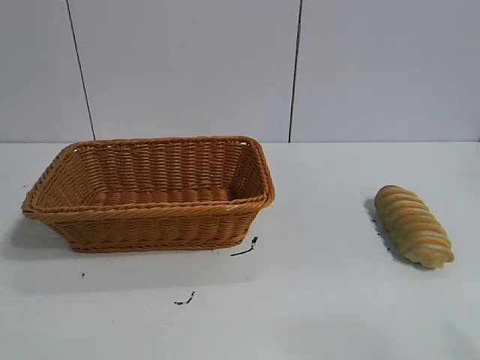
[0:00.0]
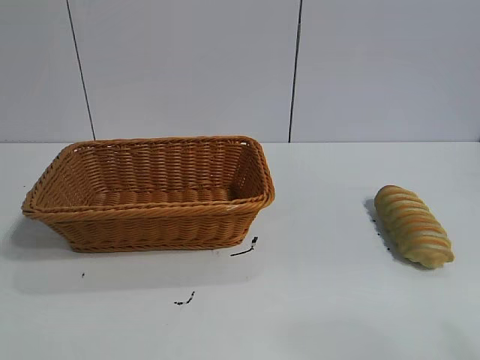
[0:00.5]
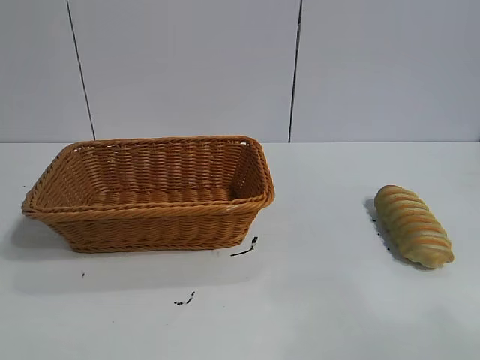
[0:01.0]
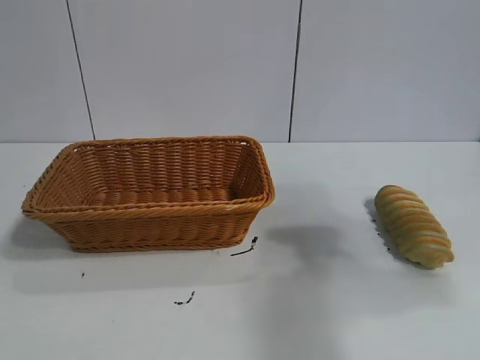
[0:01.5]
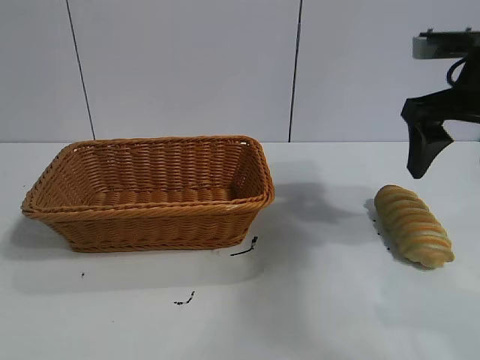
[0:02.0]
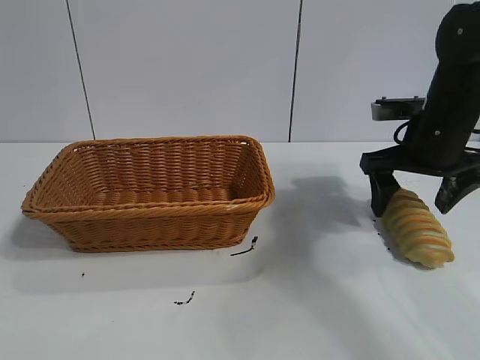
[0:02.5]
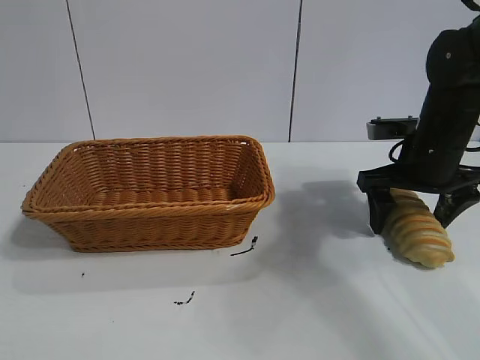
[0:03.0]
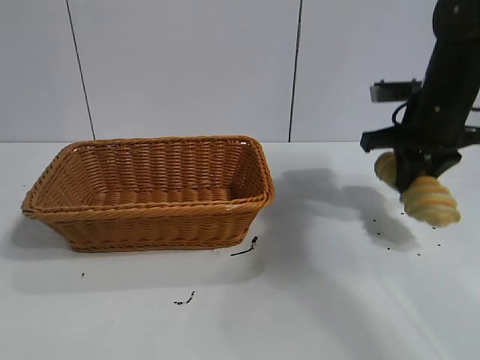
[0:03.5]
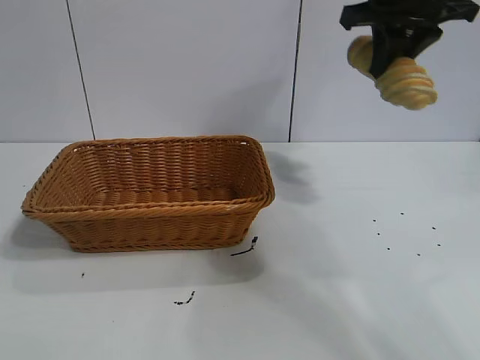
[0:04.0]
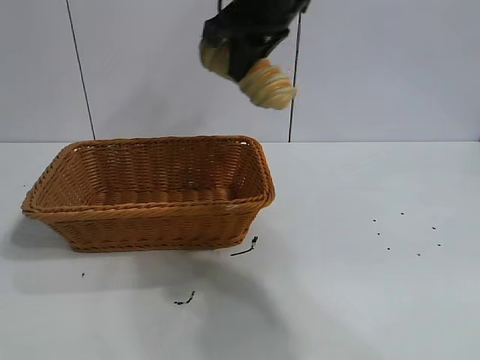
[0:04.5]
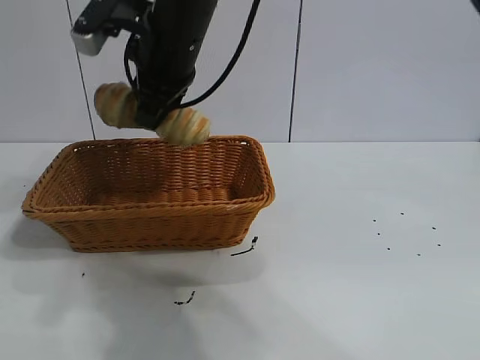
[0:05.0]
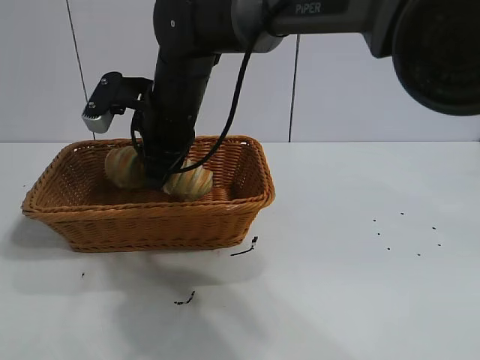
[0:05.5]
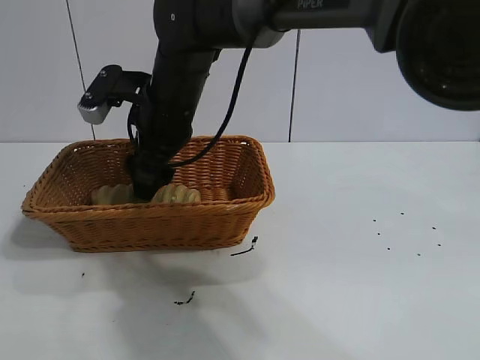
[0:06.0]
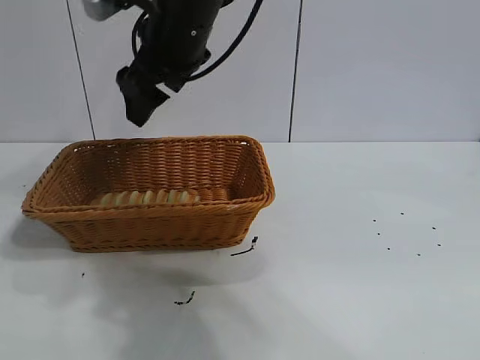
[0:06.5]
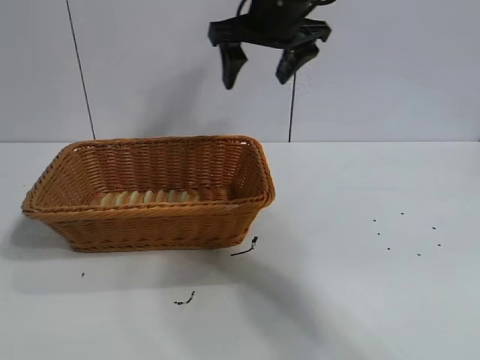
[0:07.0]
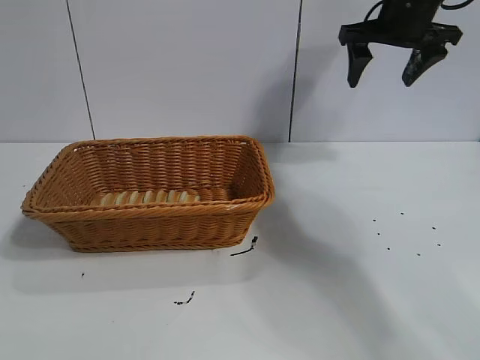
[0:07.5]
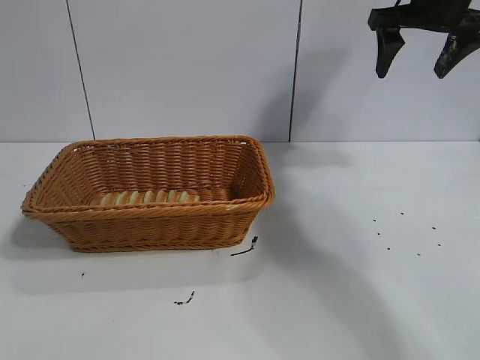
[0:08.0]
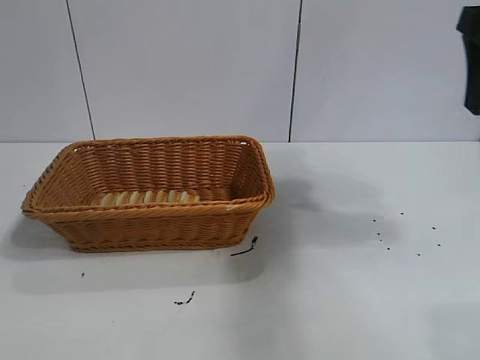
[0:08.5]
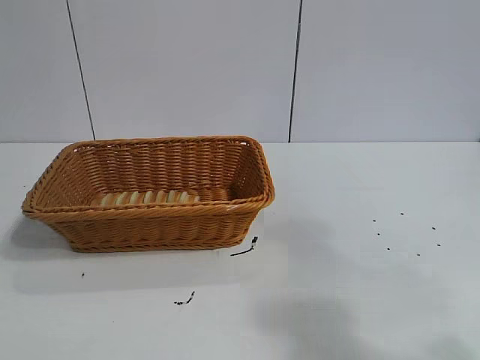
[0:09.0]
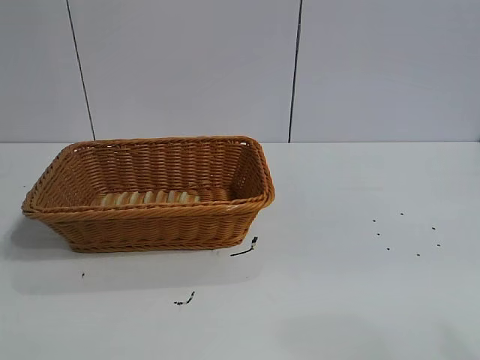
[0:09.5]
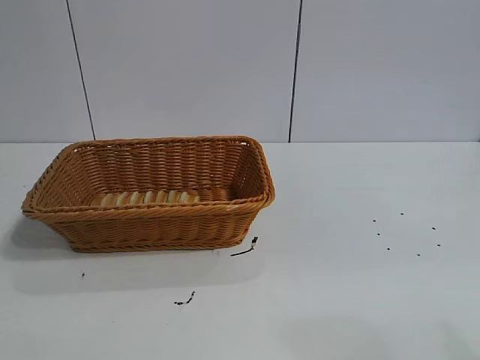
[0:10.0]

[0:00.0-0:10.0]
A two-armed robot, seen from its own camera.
Task of the whole recording: pick up the long bread and put it into the basket.
Step, 0:02.0 to 0:03.0: Grasp the long bread with right gripper.
Step, 0:03.5 to 0:06.0: Place the long bread in the basket with right gripper.

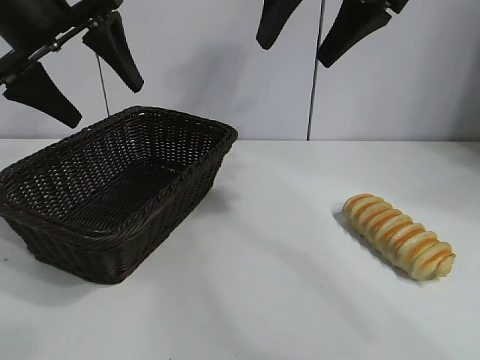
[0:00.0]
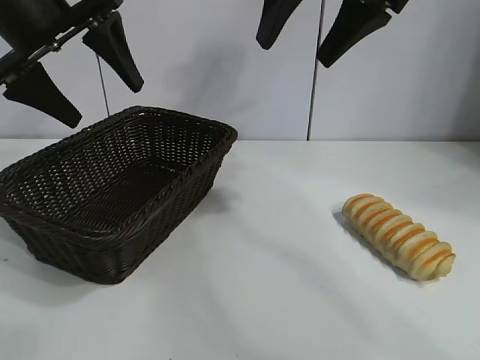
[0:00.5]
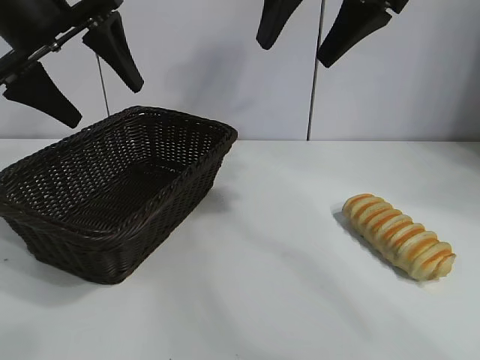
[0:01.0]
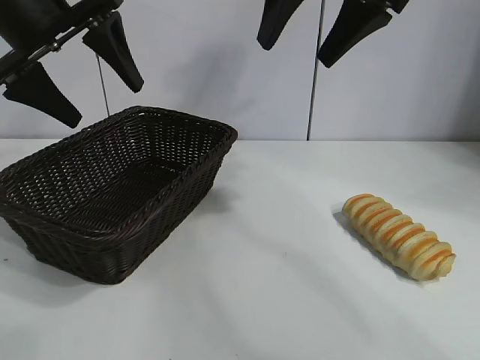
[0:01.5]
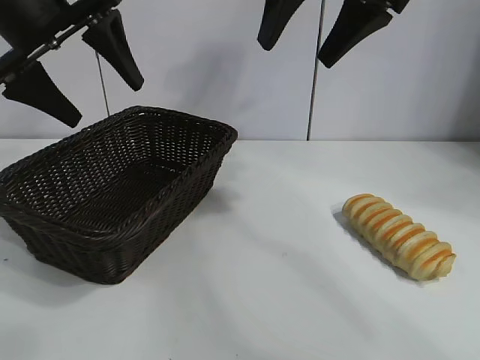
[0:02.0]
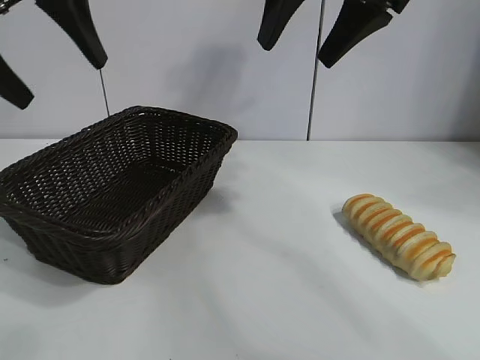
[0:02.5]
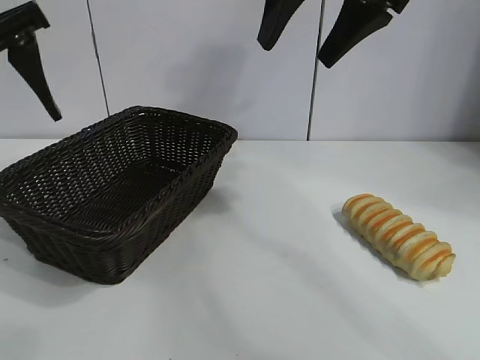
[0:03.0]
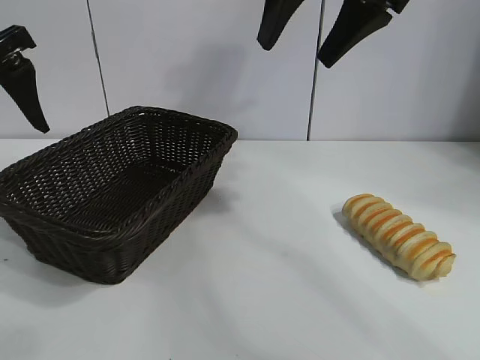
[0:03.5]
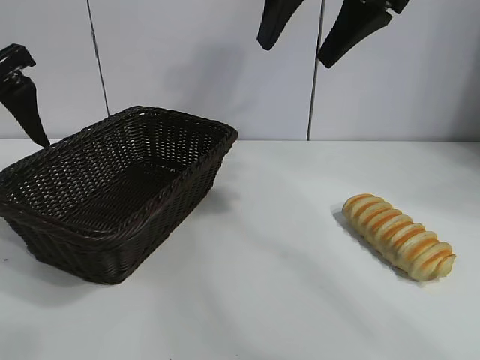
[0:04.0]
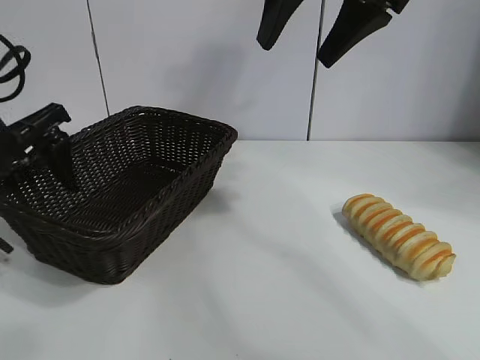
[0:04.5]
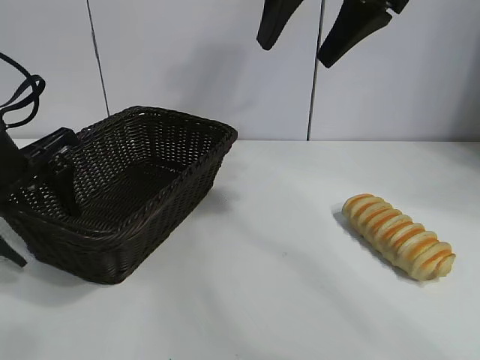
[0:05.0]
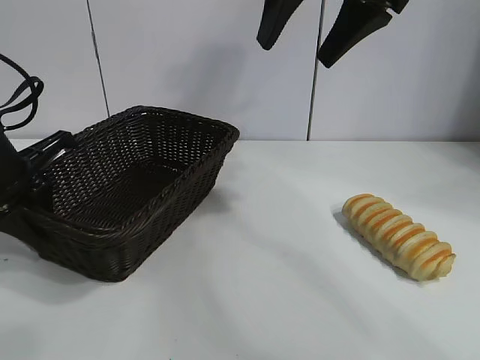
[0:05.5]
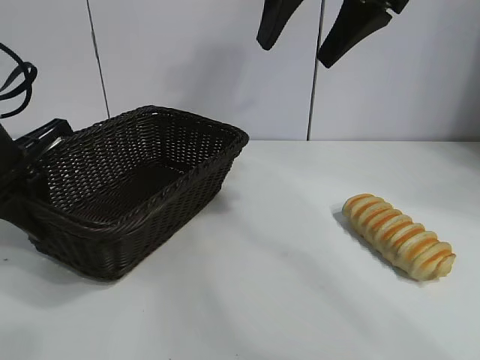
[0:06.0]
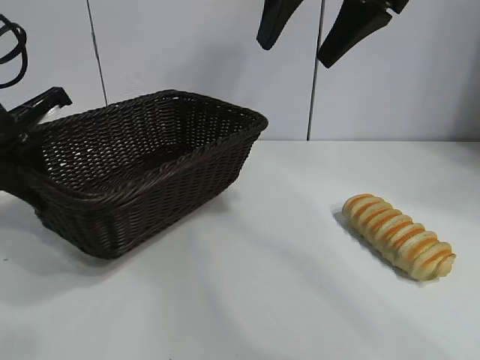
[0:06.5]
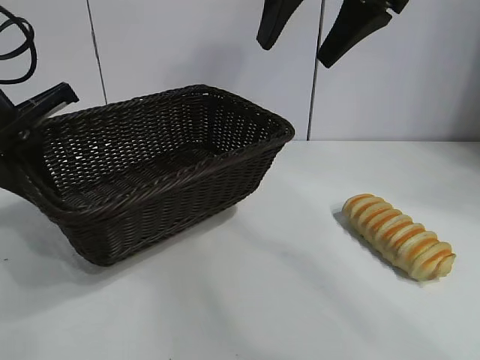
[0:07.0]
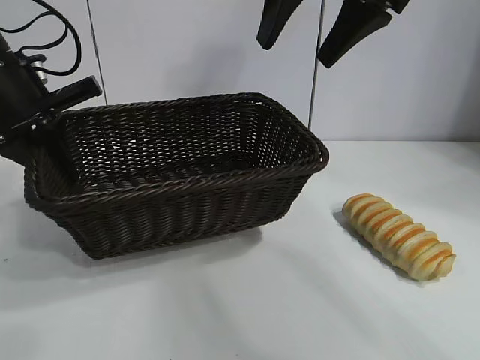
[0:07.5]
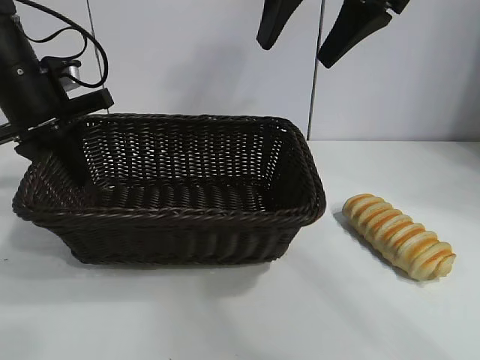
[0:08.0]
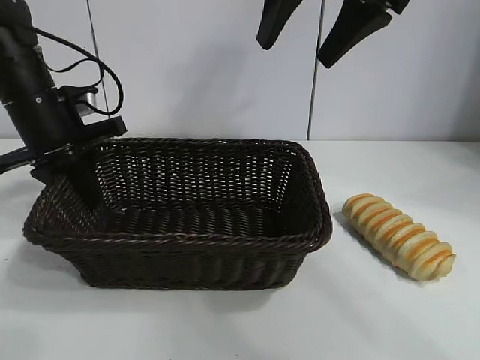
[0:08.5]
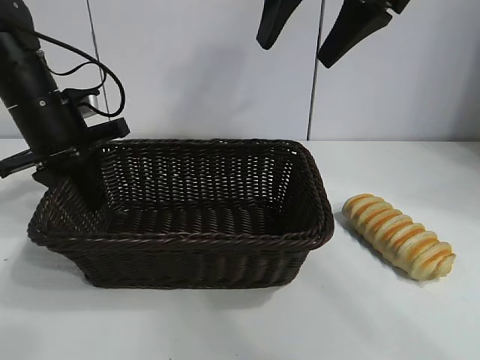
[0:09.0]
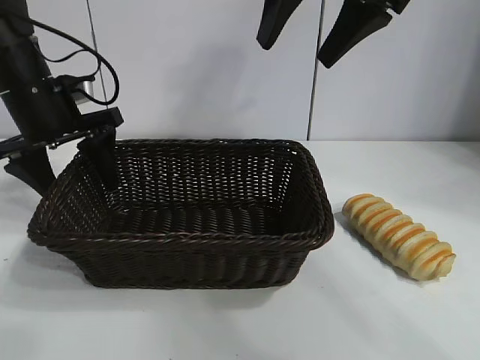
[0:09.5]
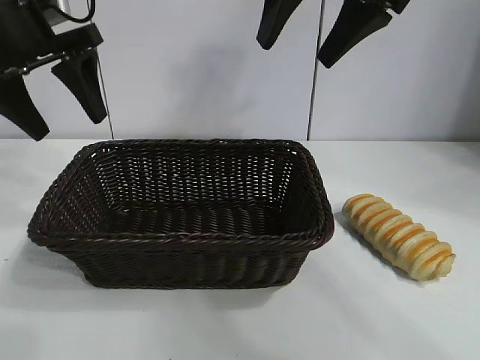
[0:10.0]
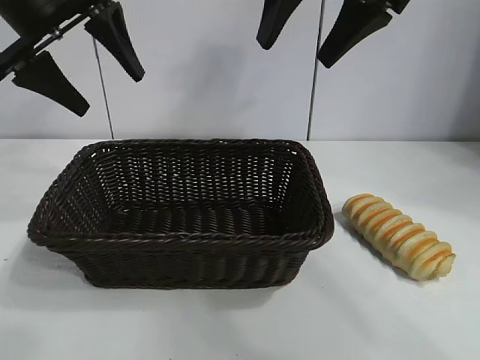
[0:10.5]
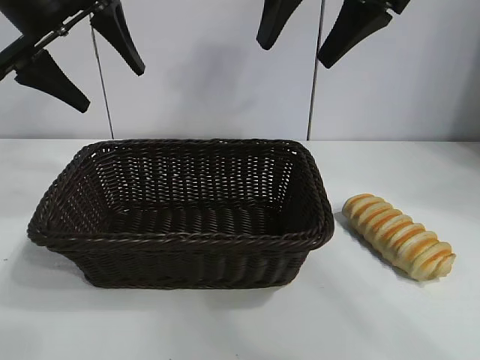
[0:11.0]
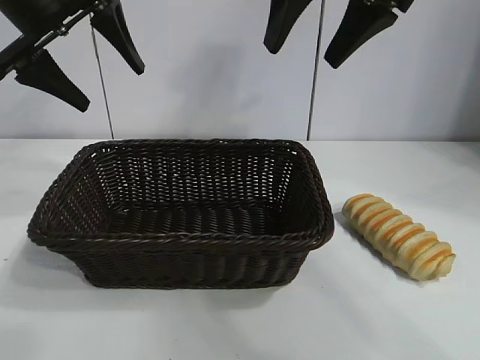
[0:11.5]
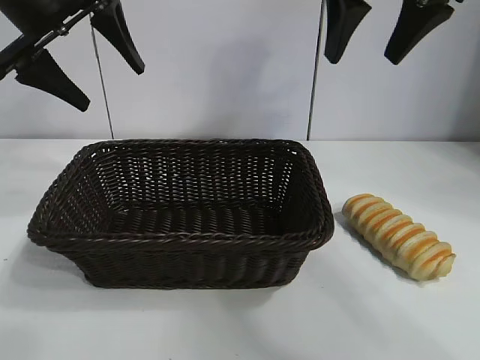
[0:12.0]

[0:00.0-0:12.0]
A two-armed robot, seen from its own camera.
Task of the whole recording: pick up the long bread and put it into the basket.
Step, 0:02.0 to 0:05.5: Grasp the basket with the left gripper.
Step, 0:06.0 to 0:09.0: Place the basket in the center of the table with the left gripper.

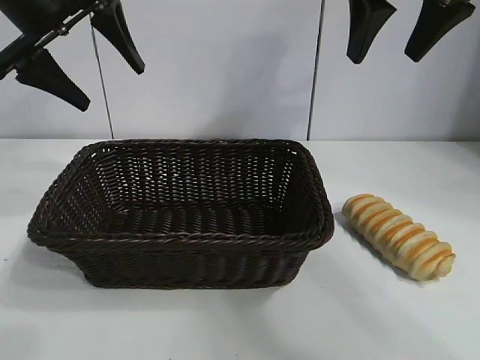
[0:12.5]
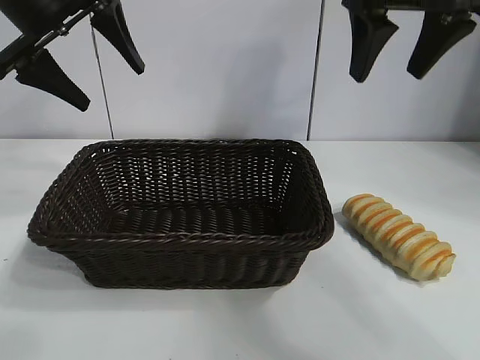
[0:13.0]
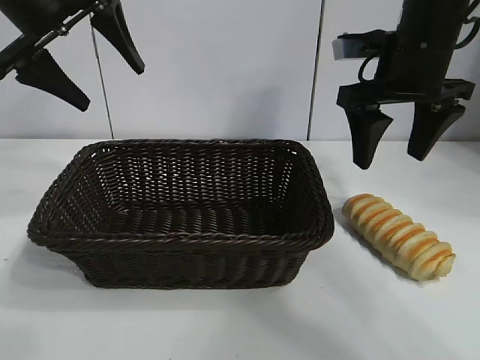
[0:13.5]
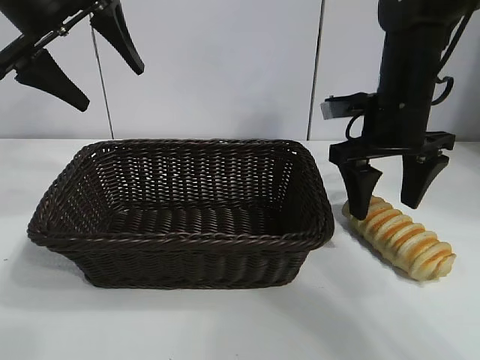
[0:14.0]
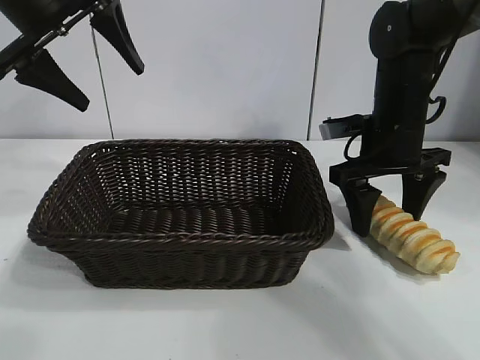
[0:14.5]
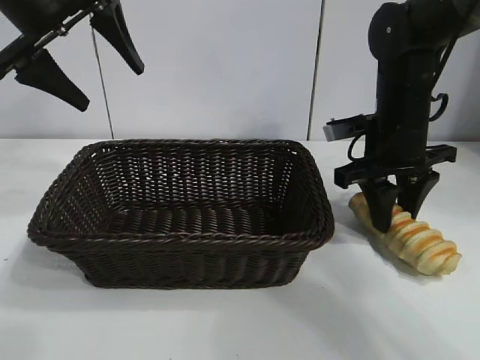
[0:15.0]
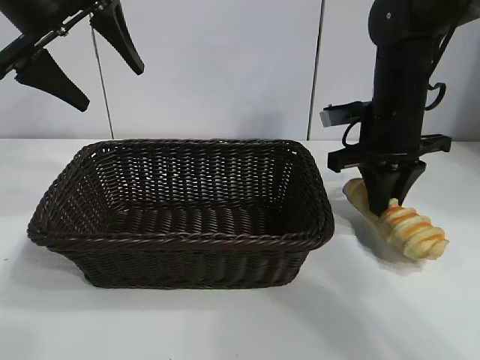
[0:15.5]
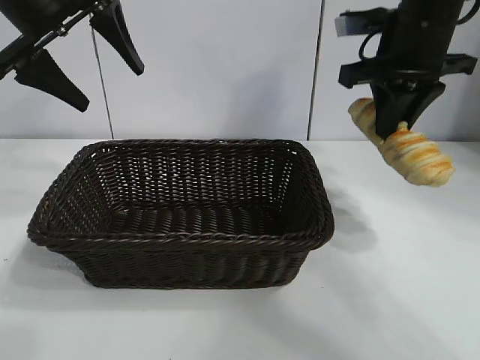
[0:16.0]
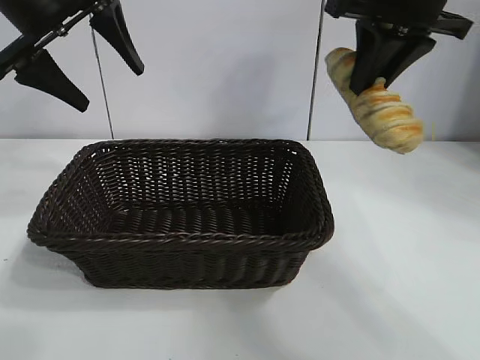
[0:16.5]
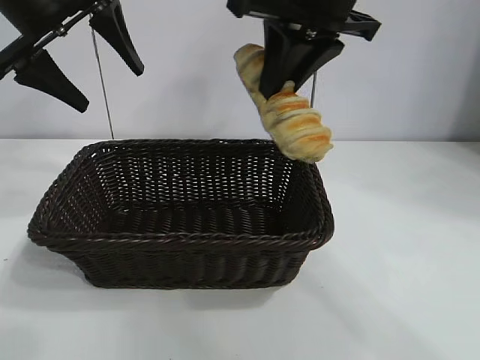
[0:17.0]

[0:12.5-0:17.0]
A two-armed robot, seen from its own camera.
Task of the whole recording: pick up the long bread and put it into the basket.
Step, 0:12.5 to 0:15.0: Grasp the long bread with right gripper.
